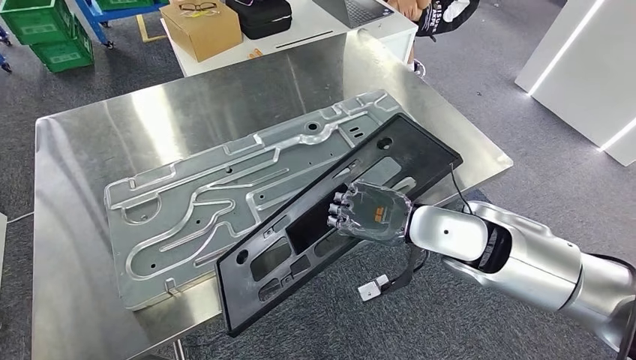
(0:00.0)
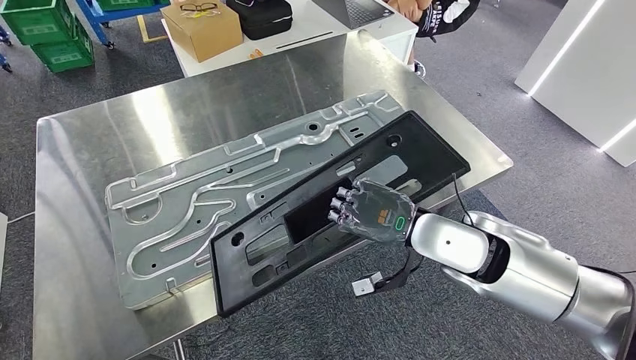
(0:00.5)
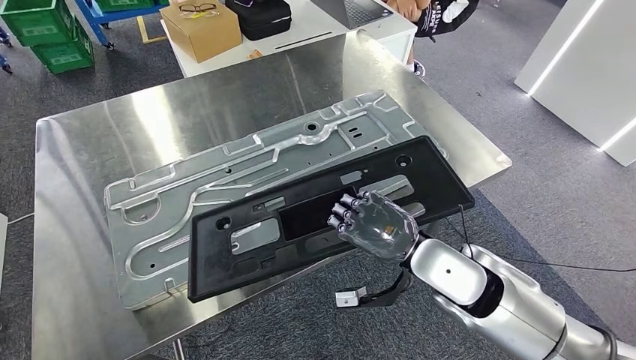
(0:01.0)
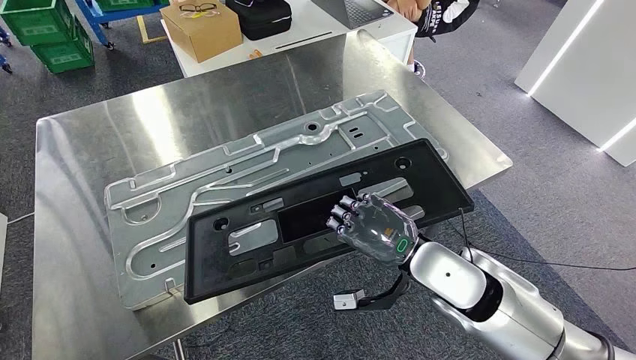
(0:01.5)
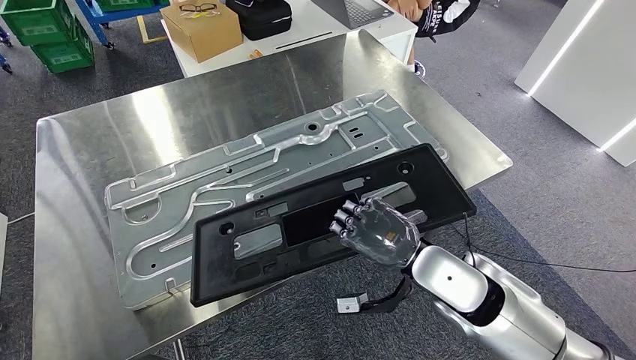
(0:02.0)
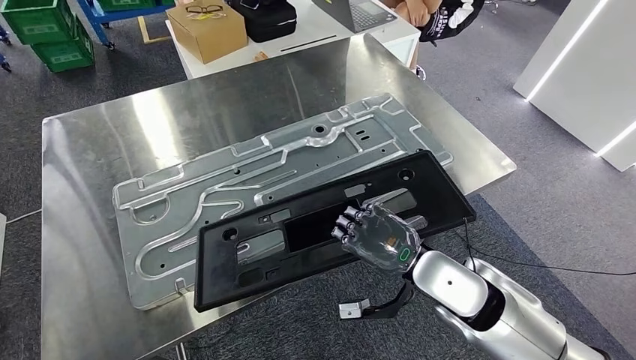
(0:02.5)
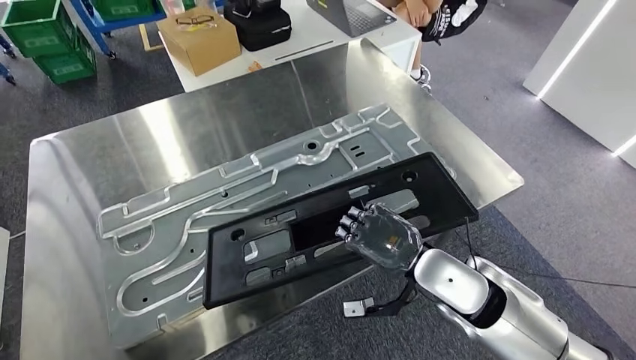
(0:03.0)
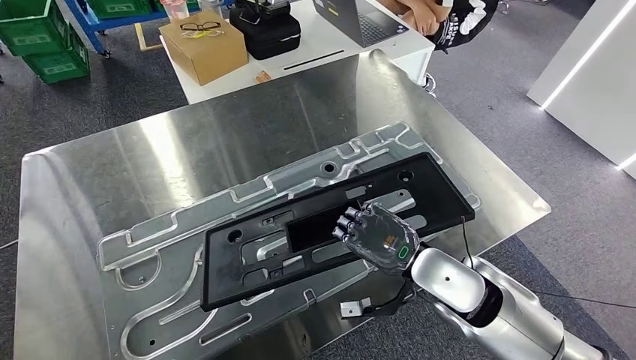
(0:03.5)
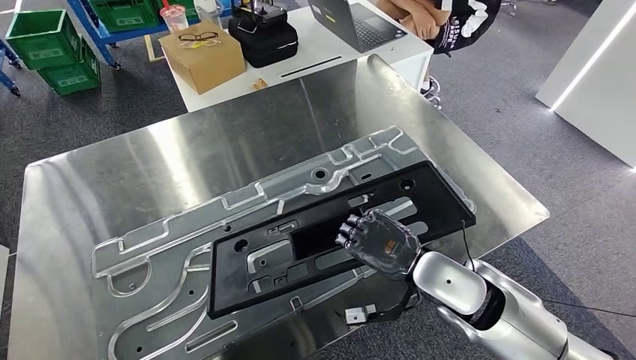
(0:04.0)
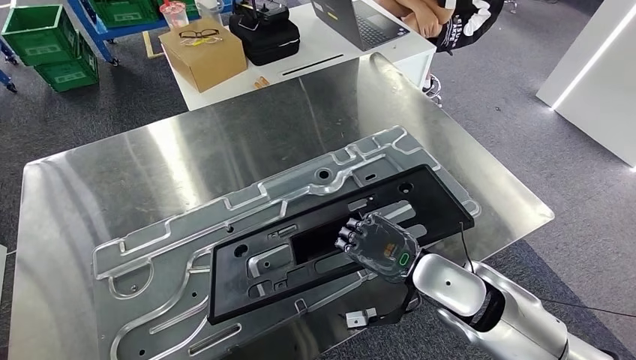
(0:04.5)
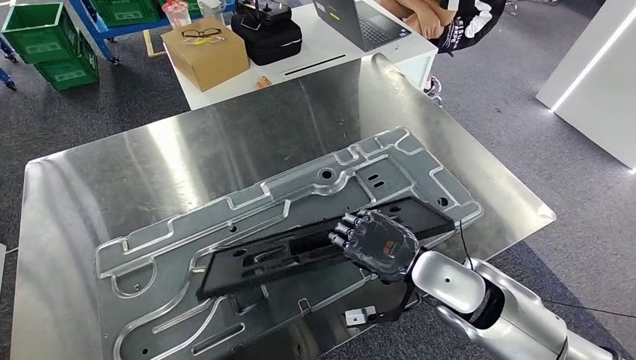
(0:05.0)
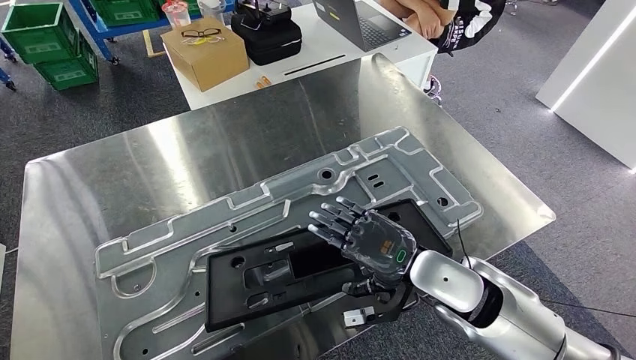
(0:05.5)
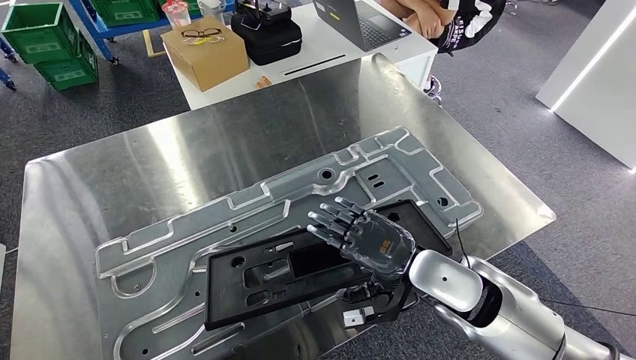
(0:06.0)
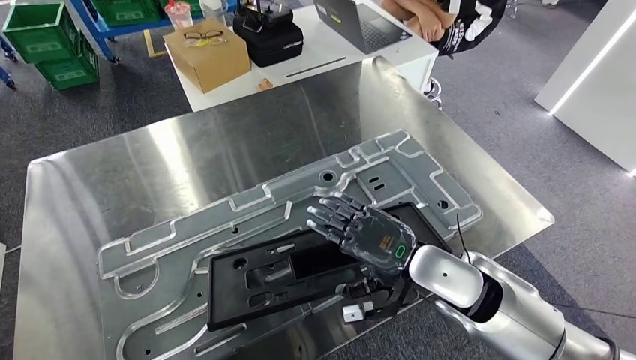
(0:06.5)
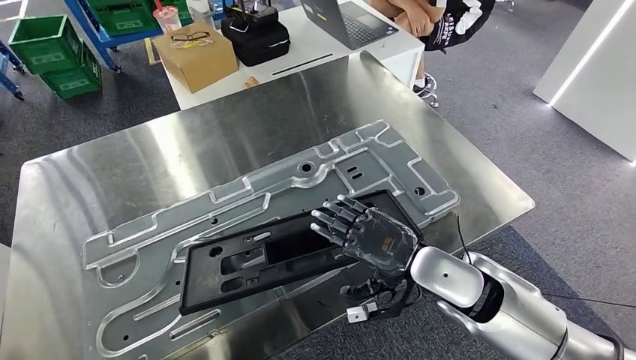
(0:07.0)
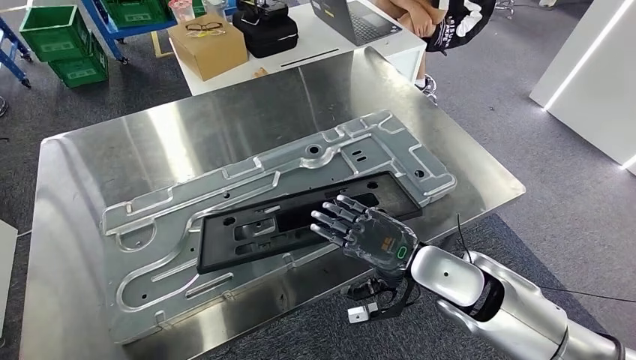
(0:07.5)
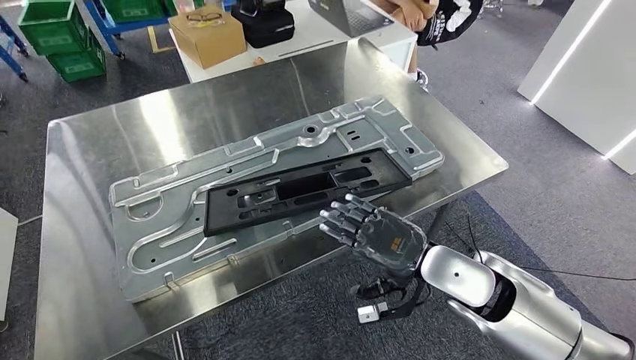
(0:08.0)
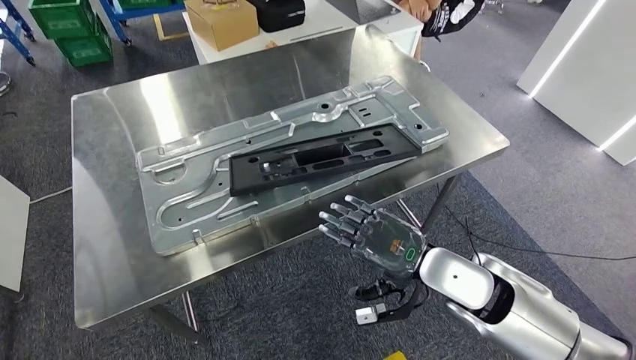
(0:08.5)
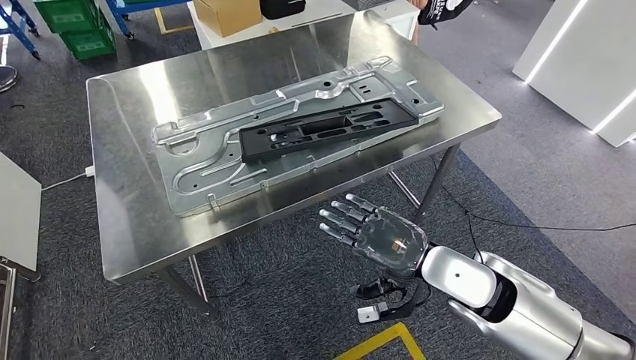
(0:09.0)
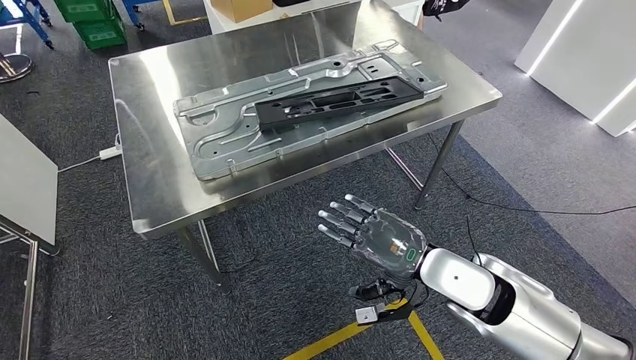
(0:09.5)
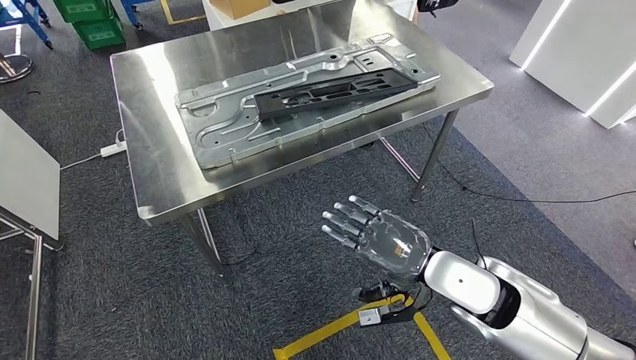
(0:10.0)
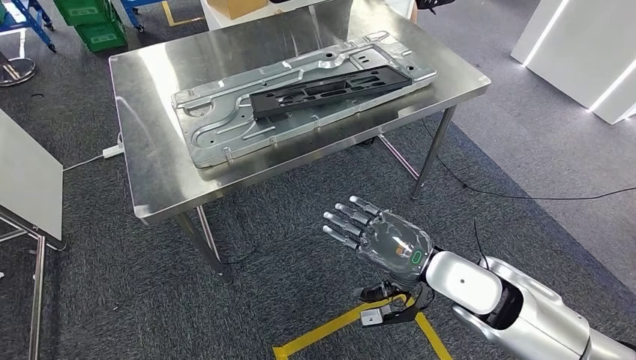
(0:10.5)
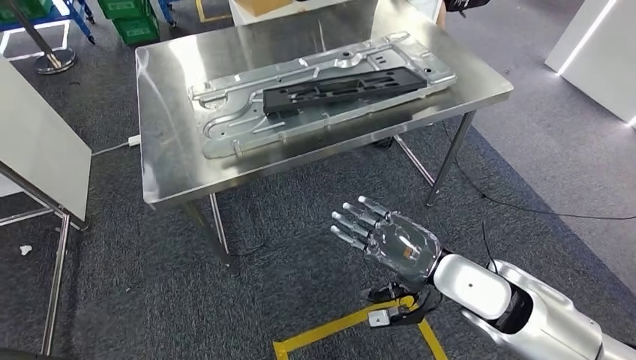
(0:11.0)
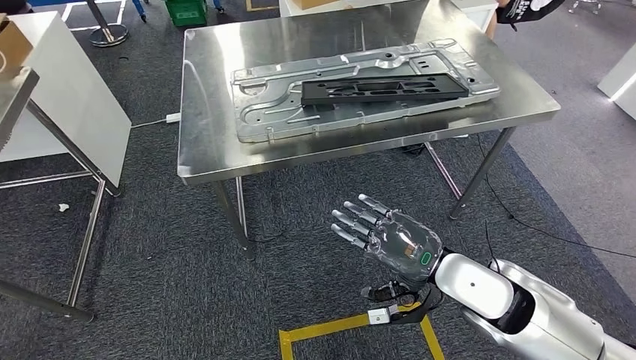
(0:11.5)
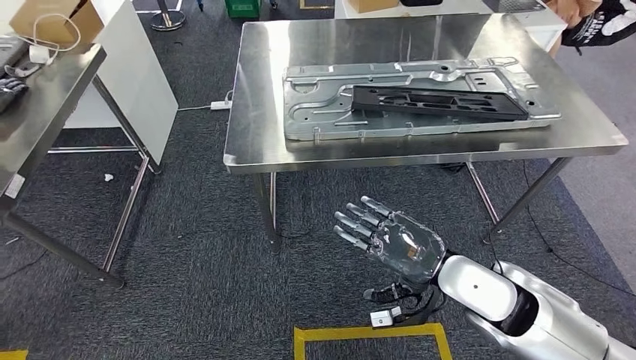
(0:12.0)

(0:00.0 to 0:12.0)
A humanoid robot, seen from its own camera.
Step, 0:00.0 - 0:08.0: Insert the large material into the corresponding slot on the workbench.

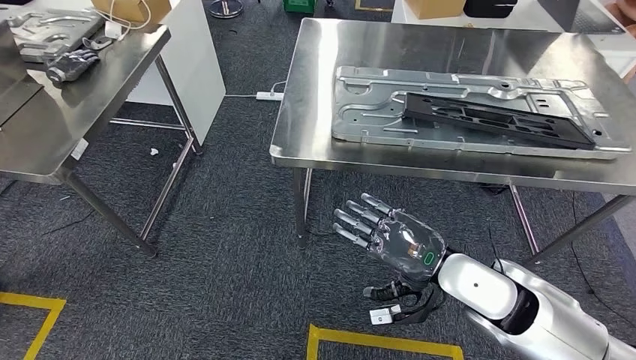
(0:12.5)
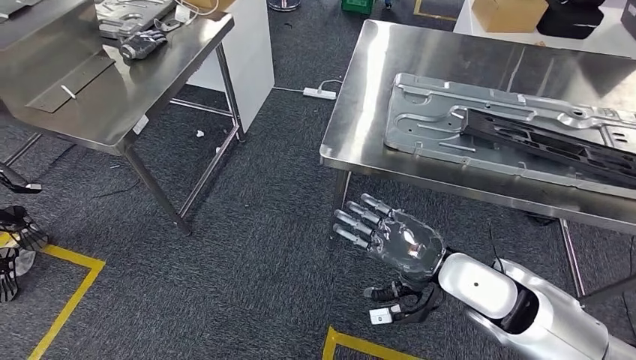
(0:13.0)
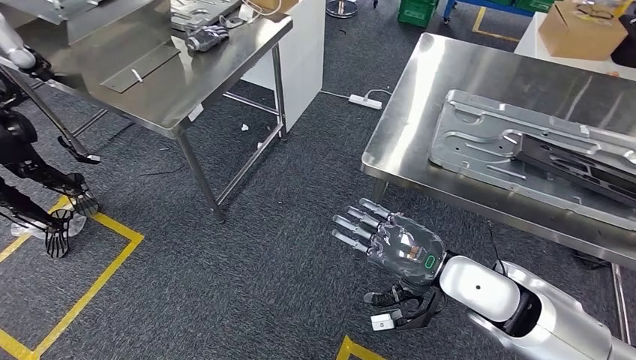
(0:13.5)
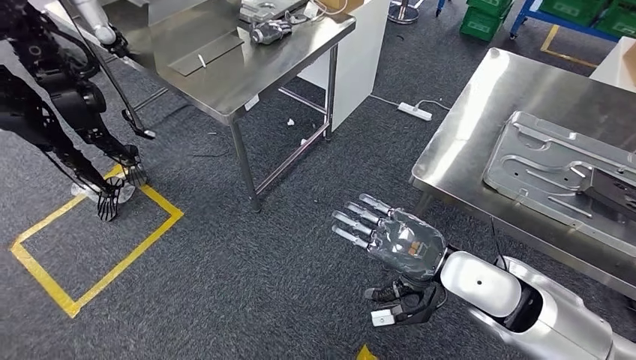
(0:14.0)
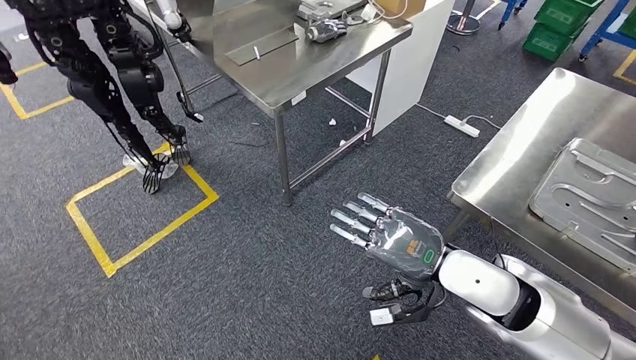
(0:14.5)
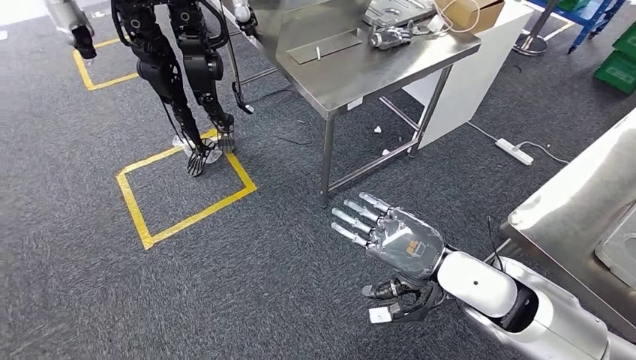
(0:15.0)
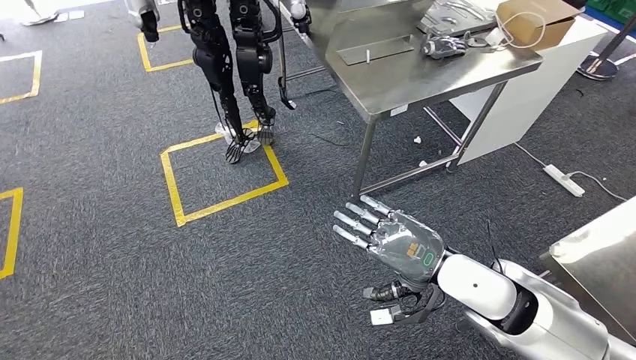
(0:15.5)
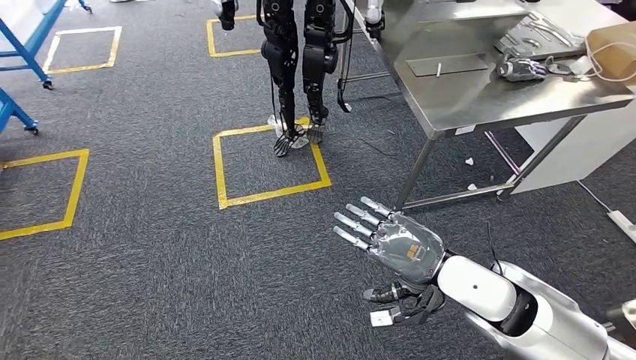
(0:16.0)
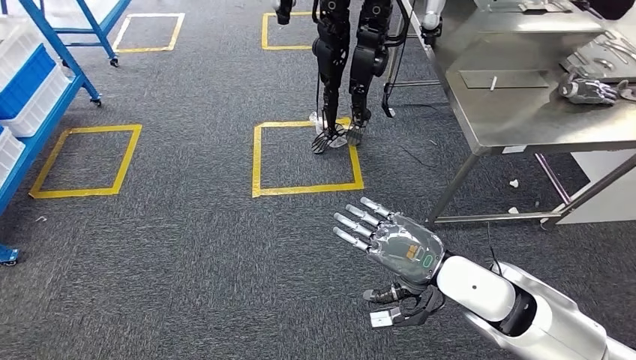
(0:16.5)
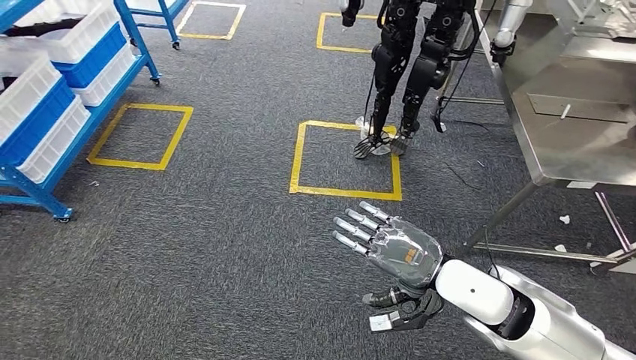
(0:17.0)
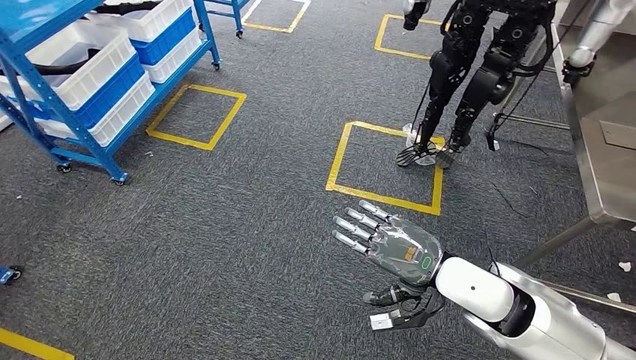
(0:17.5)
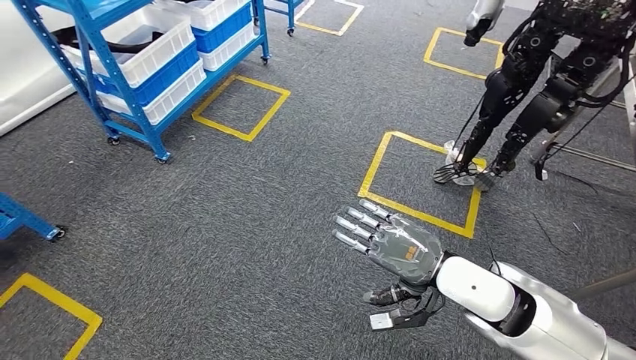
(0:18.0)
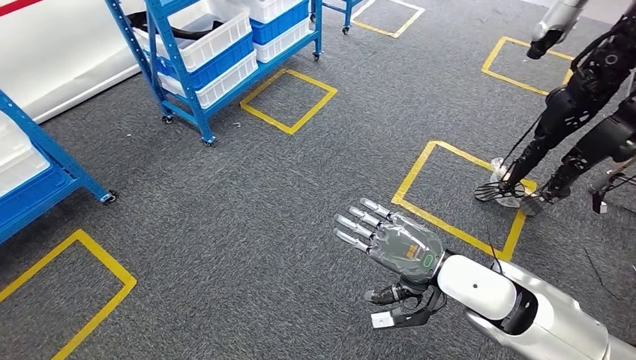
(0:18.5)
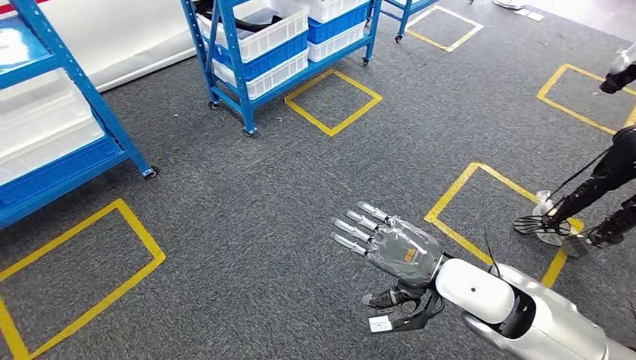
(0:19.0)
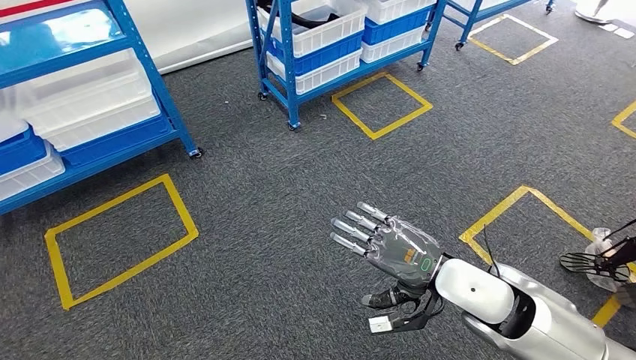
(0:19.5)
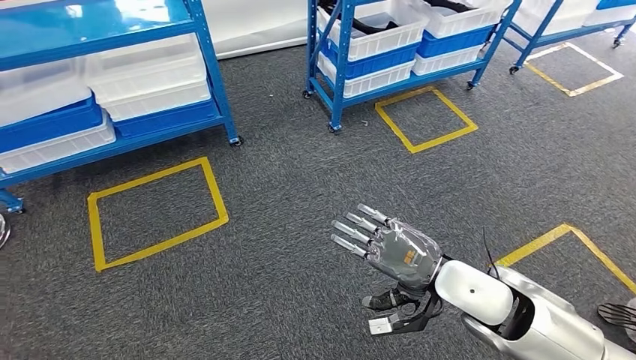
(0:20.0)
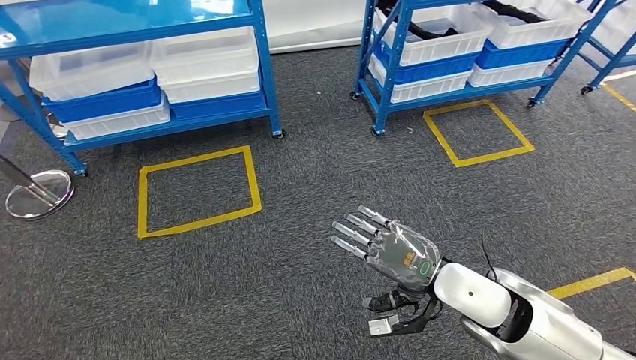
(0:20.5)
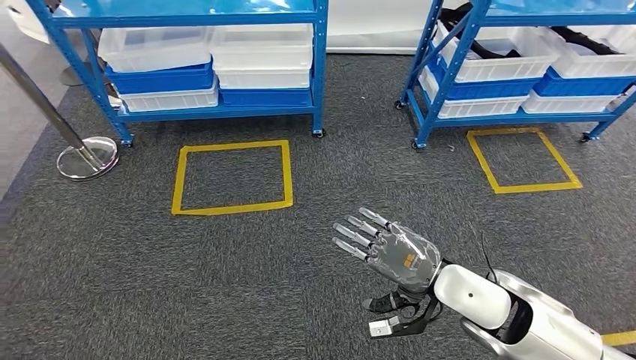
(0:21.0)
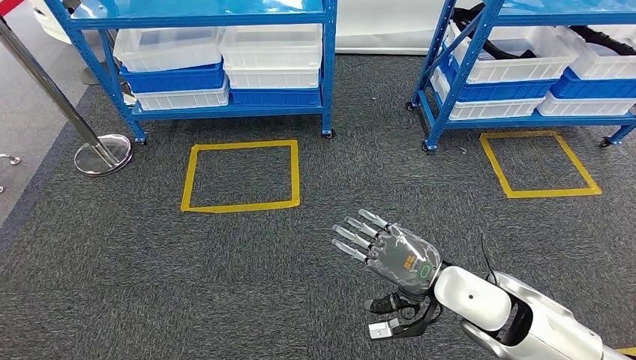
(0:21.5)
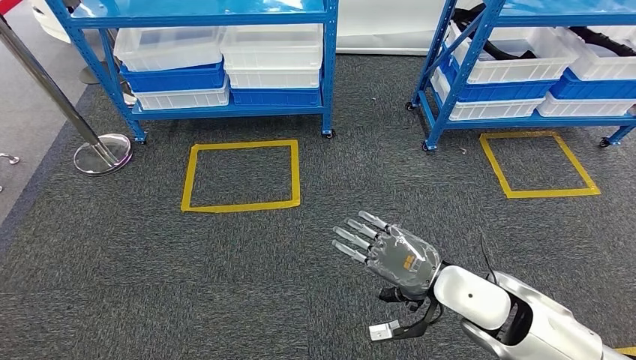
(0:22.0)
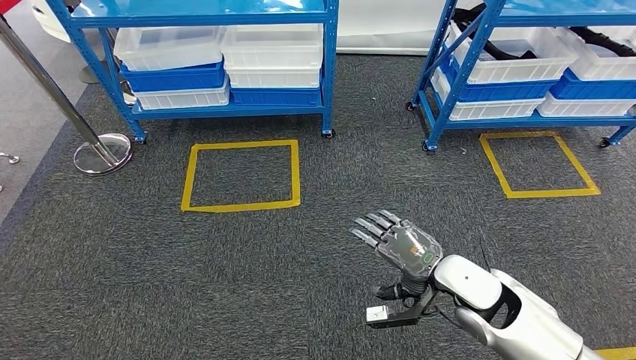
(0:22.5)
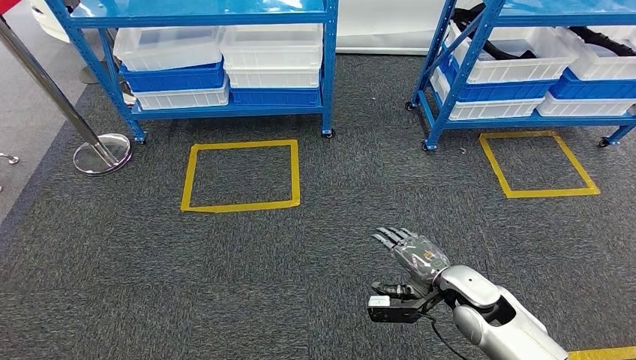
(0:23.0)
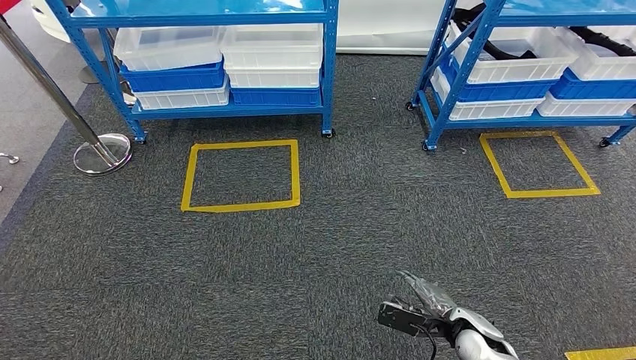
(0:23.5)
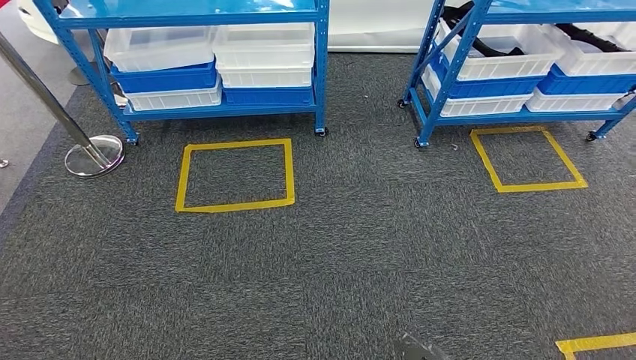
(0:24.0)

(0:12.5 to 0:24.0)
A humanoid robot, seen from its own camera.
Step, 0:12.5 - 0:23.5: Return to the initial position at the shelf.
